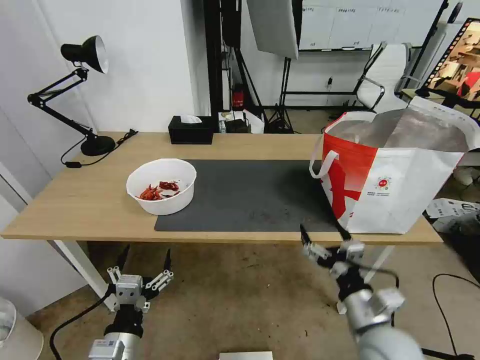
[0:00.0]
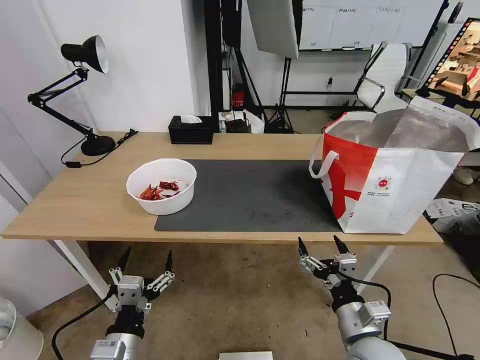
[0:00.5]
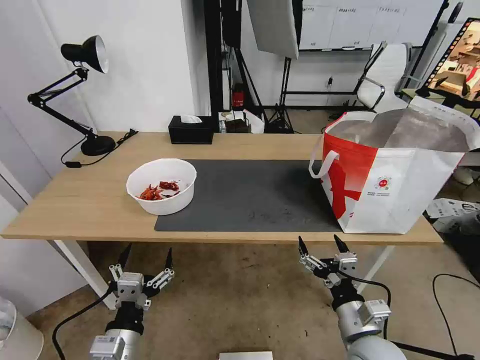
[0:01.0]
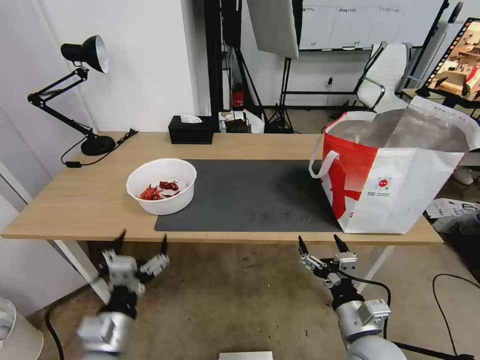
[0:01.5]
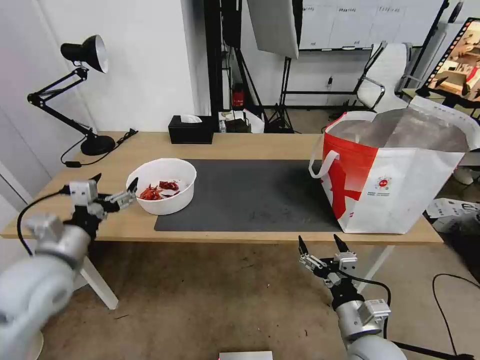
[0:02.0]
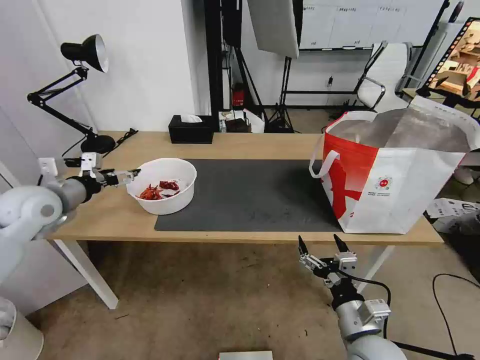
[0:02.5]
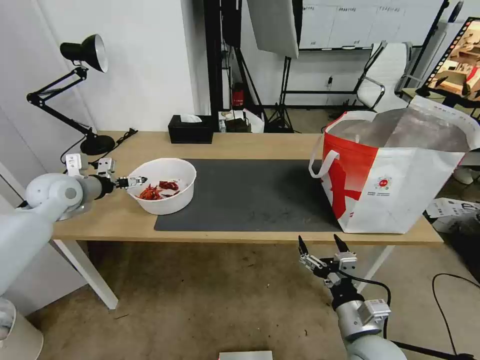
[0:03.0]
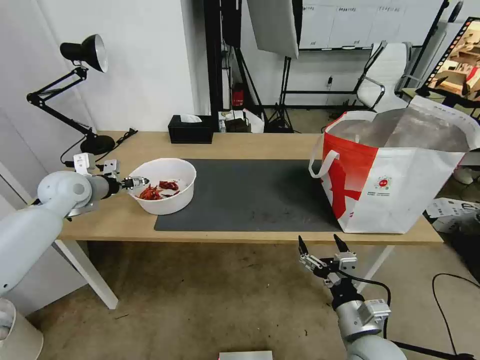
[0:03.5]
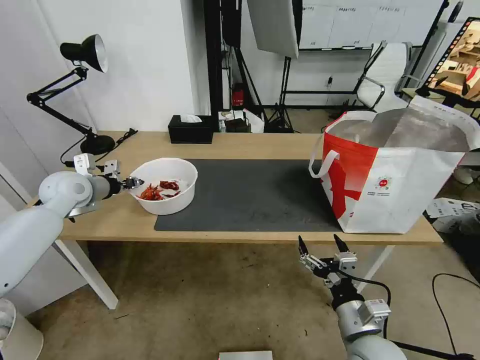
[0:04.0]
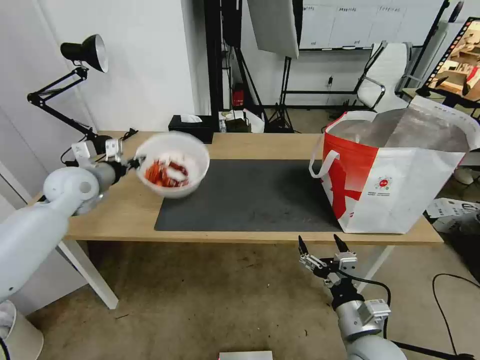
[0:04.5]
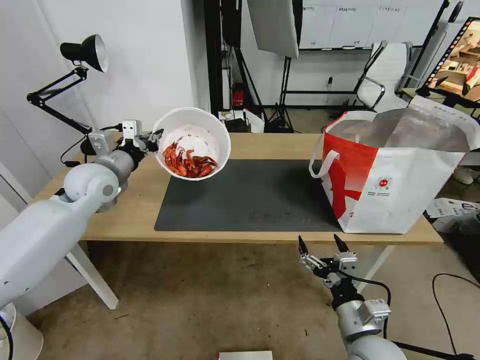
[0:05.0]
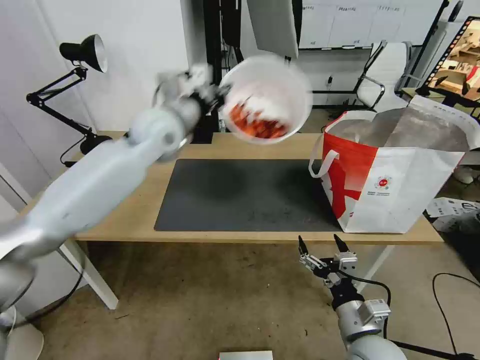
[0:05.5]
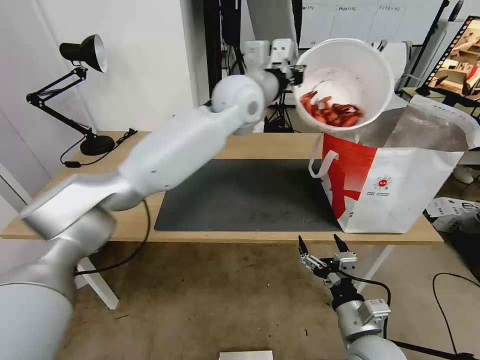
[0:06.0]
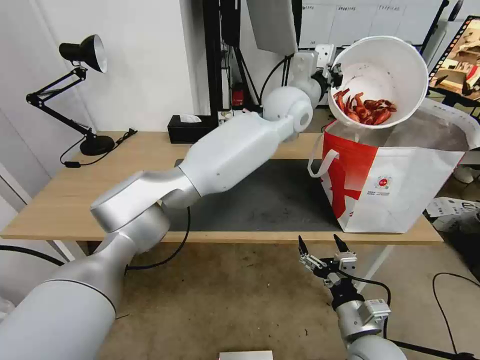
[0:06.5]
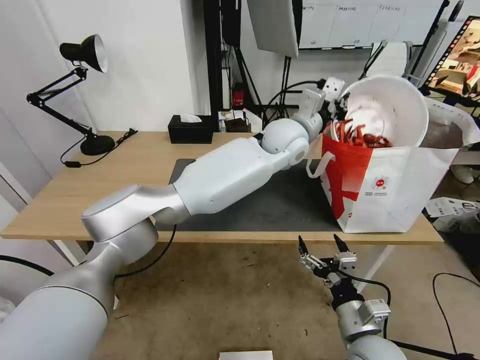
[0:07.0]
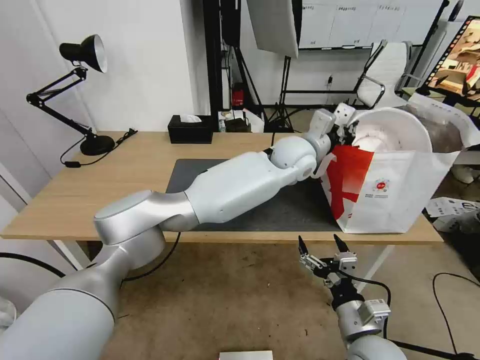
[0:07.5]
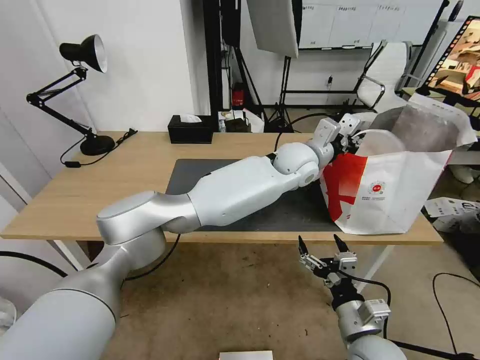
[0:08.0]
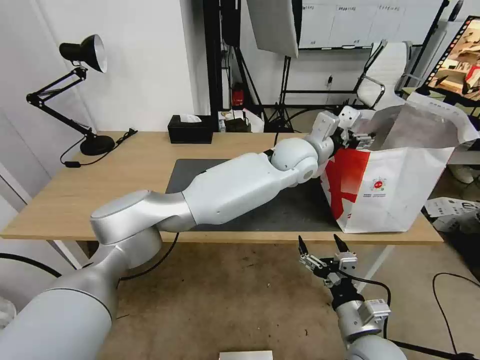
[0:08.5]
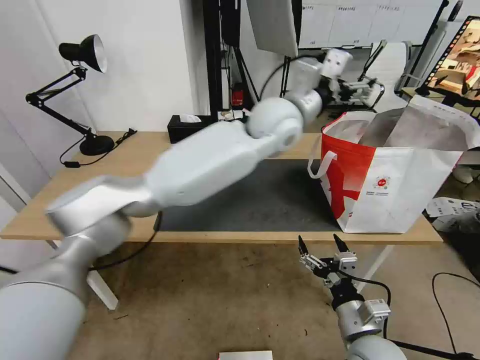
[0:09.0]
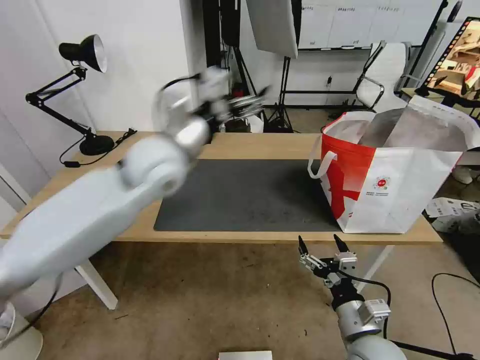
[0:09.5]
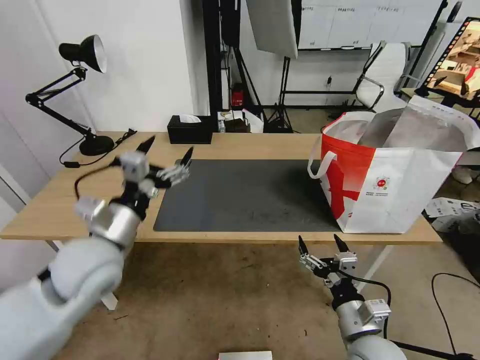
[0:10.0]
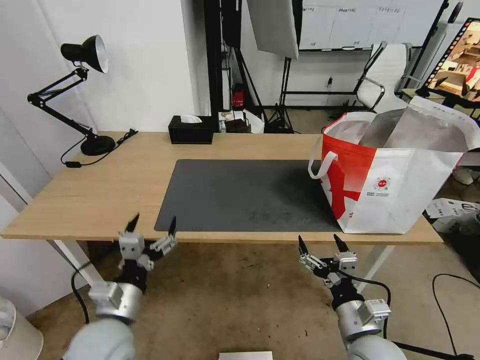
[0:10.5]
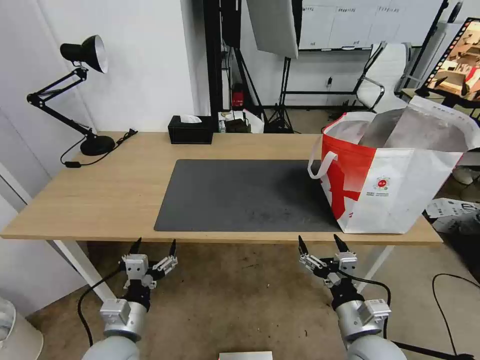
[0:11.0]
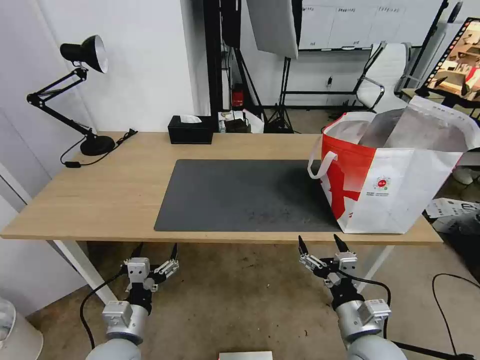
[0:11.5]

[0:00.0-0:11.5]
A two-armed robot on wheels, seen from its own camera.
Task of the whole recording: Pick up the trash from the table and place it into the takeout bag.
0:00.0 to 0:02.0: The left gripper shifts roughly 25 cm forward, upward and to the left.
0:02.0 to 0:04.0: The left gripper travels forward by about 20 cm, and closes.
0:04.0 to 0:06.0: The left gripper is displaced to the right and upward by approximately 40 cm.
0:06.0 to 0:07.5: The left gripper heads downward and to the right, covering approximately 15 cm.
0:07.5 to 0:09.5: The left gripper travels to the left and backward by some 30 cm, and opens.
0:09.5 to 0:11.5: The left gripper shifts roughly 35 cm downward and backward.

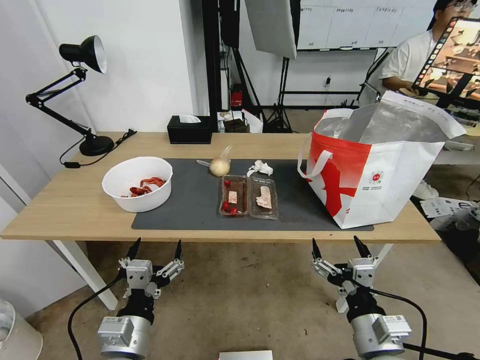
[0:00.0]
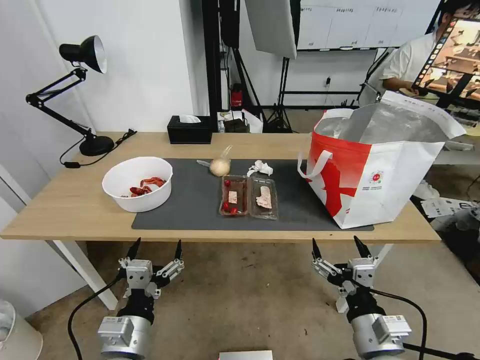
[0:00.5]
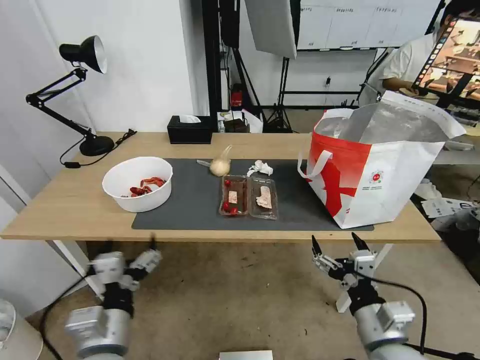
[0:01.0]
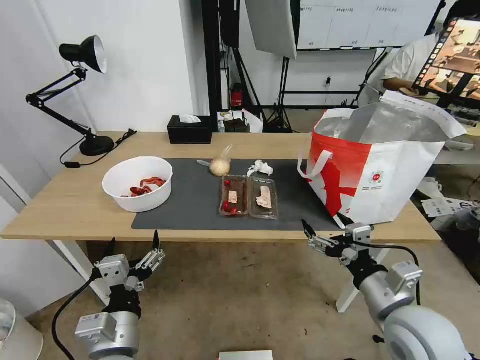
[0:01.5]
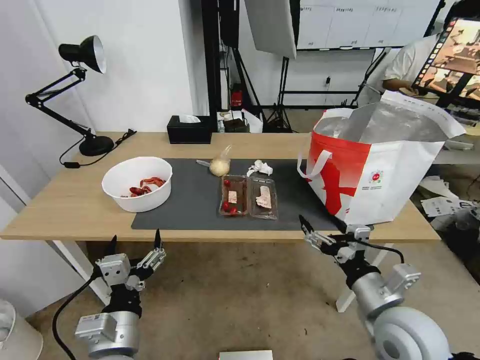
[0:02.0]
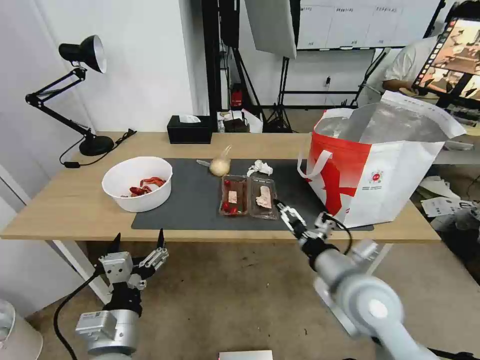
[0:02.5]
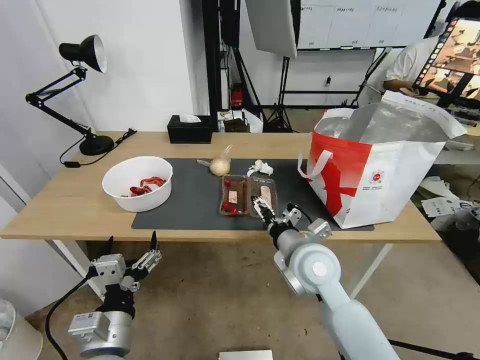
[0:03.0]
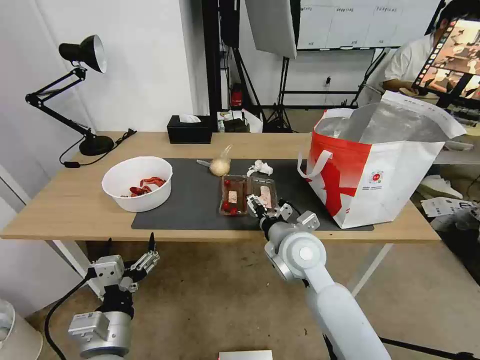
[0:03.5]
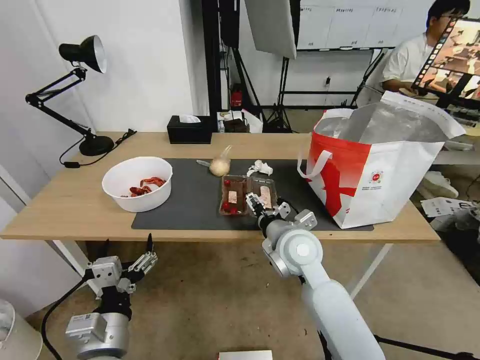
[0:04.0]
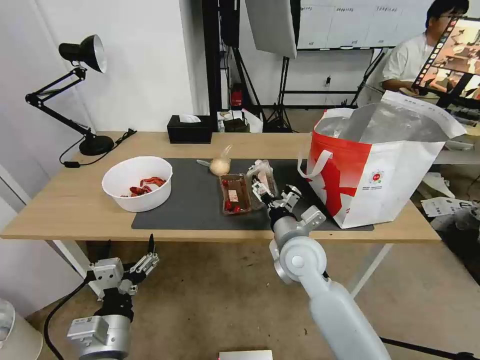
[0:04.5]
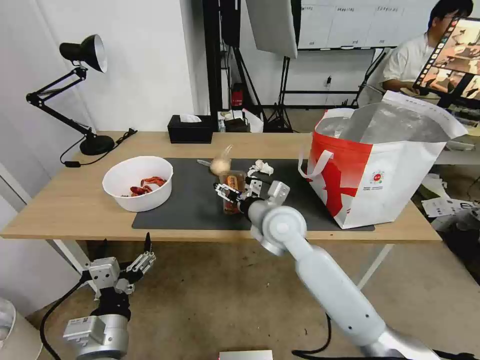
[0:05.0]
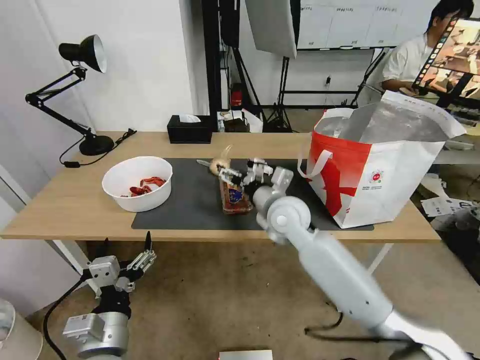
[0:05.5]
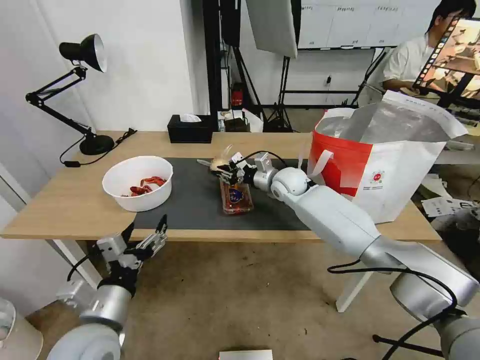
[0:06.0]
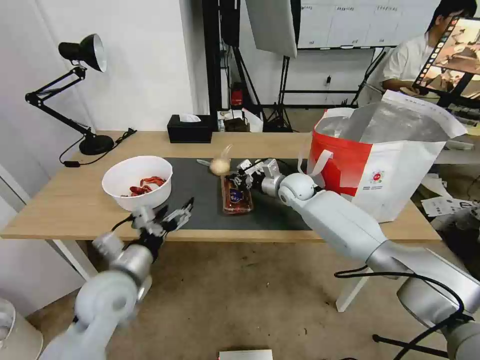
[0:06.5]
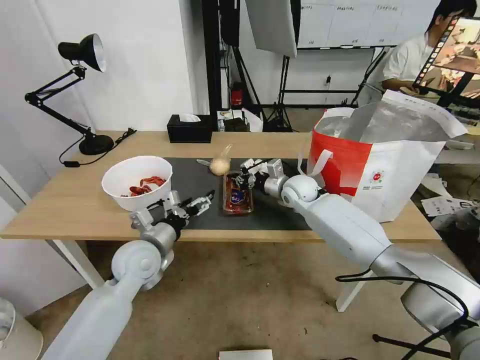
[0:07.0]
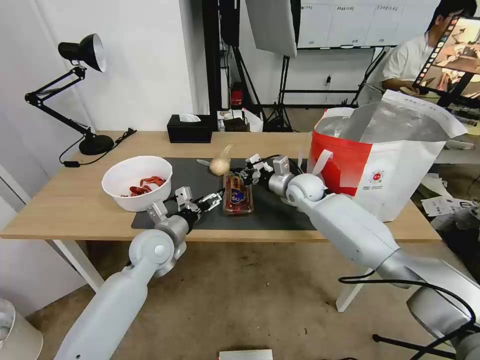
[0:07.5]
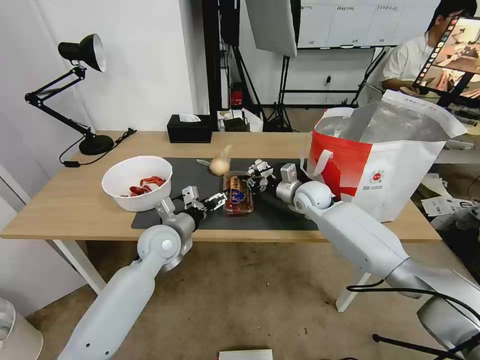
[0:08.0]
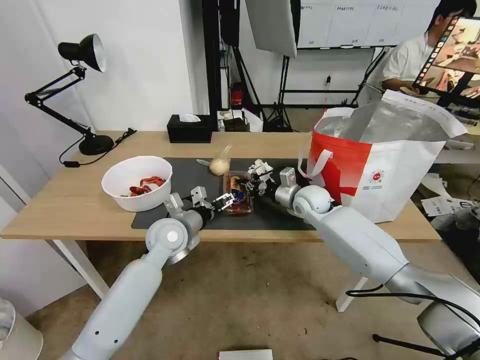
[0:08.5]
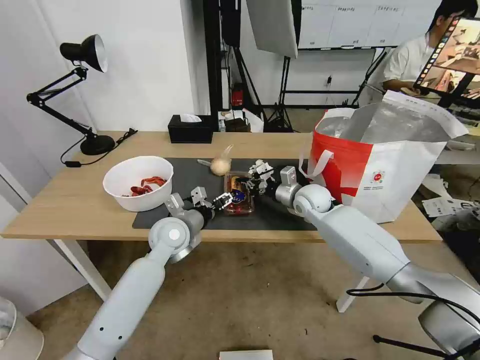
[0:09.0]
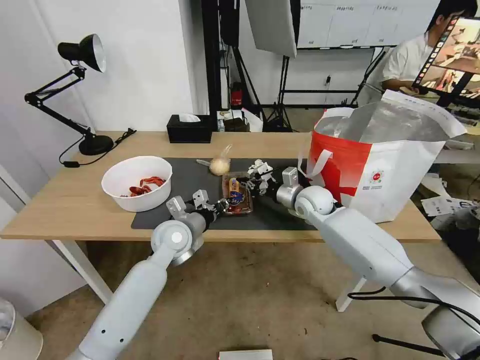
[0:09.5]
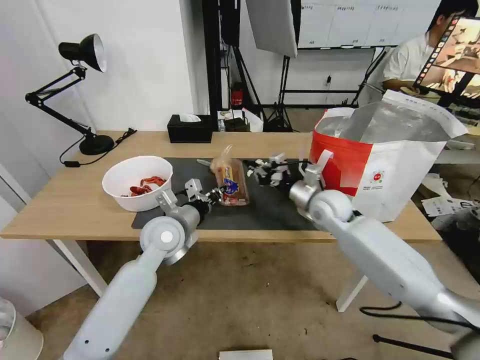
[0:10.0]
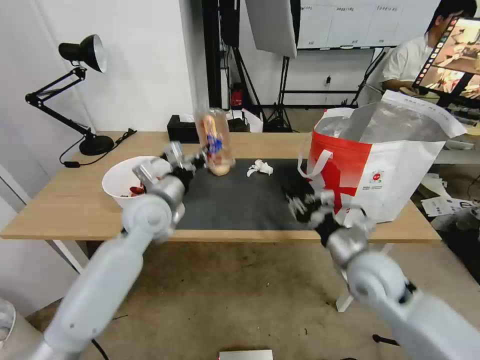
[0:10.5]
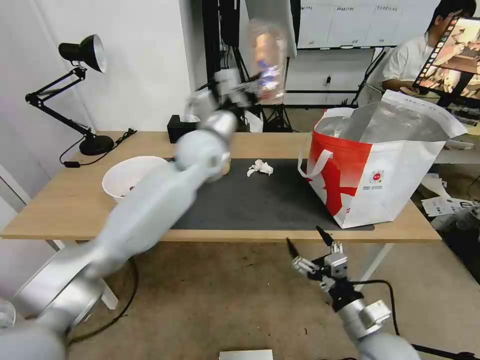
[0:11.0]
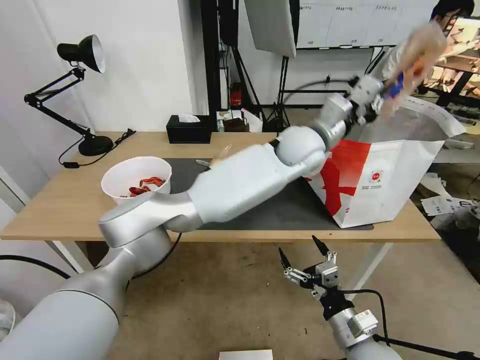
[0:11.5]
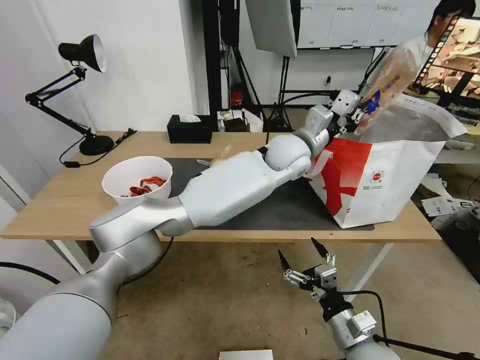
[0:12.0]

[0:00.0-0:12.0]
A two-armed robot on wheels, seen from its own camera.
Task of the whole recording: Pick up the trash from the table and place it into the takeout bag.
0:02.0 to 0:04.0: The right gripper heads to the left and forward, covering roughly 20 cm.
0:04.0 to 0:06.0: The right gripper heads forward, covering roughly 20 cm, and closes up.
0:06.0 to 0:08.0: The left gripper heads forward, covering some 20 cm, while the right gripper moves to the right, roughly 5 cm.
0:08.0 to 0:10.0: The right gripper moves backward, about 5 cm. Meanwhile the left gripper closes.
0:10.0 to 0:12.0: The left gripper heads to the right, upward and forward, covering some 35 cm, while the right gripper moves backward, roughly 30 cm, and opens.

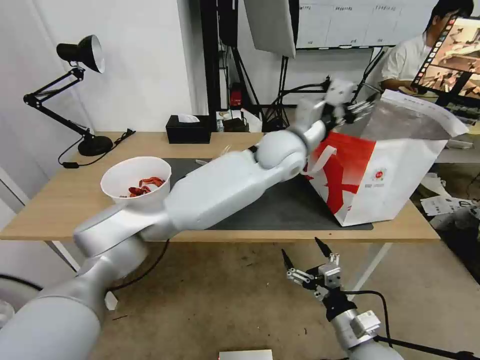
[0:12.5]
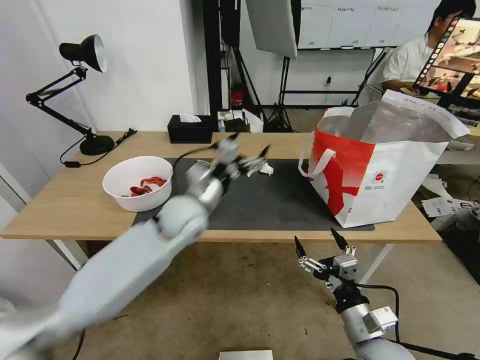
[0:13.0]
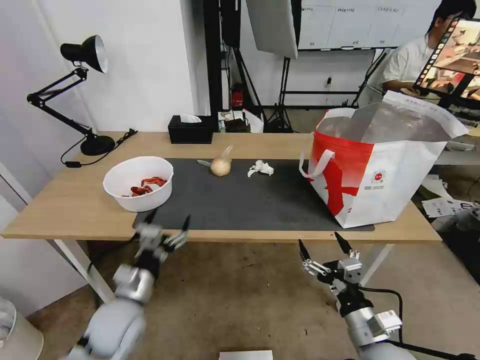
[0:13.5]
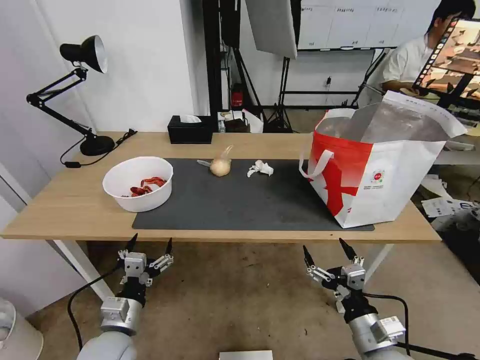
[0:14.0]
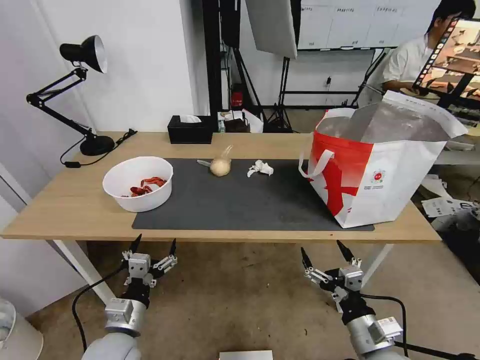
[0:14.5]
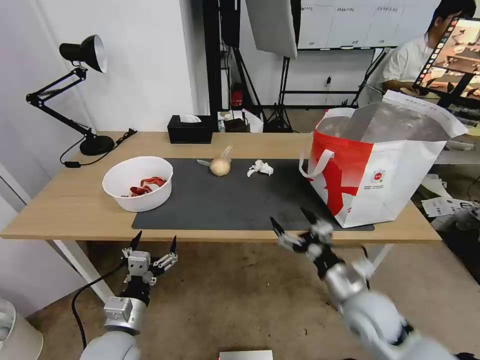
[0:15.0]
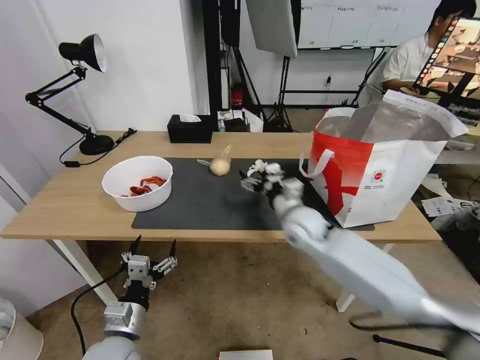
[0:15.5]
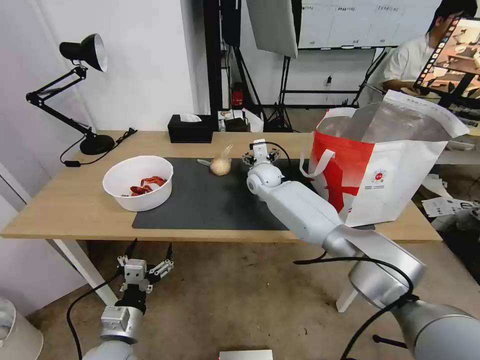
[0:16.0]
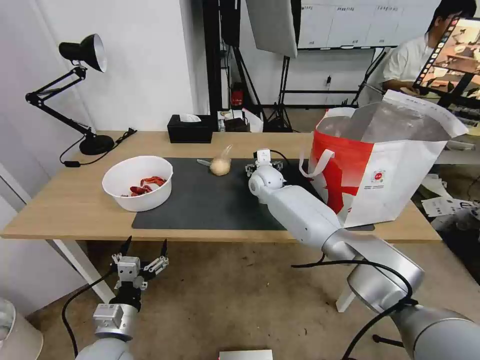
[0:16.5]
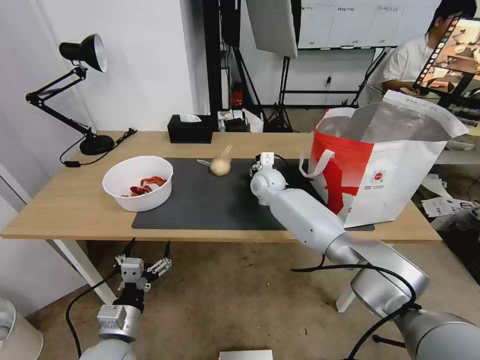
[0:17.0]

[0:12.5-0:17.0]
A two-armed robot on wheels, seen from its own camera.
Task of the whole recording: Pick up the trash from the table and place it into the takeout bag.
0:12.5 to 0:14.5: The left gripper heads to the left, backward and downward, covering roughly 50 cm.
0:14.5 to 0:17.0: The right gripper moves forward and to the left, some 50 cm, and closes up.
